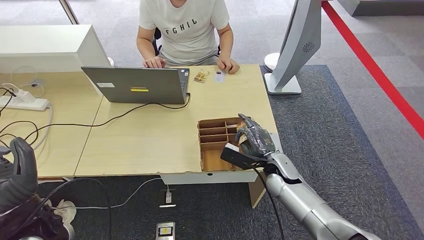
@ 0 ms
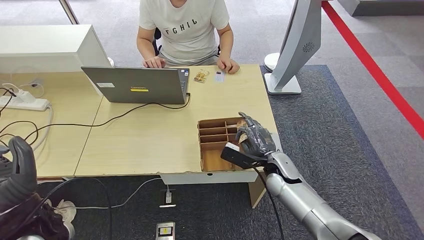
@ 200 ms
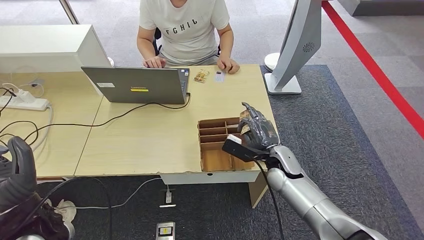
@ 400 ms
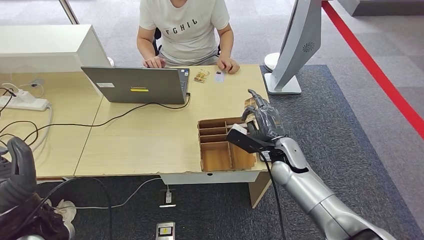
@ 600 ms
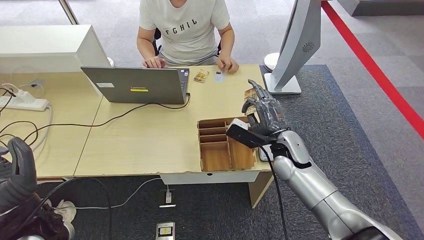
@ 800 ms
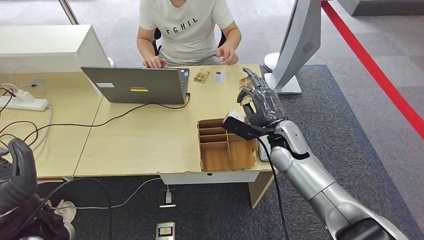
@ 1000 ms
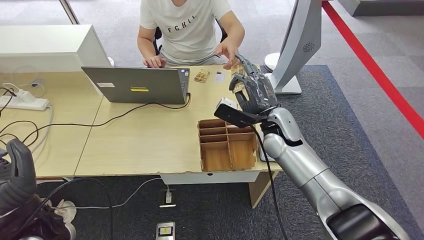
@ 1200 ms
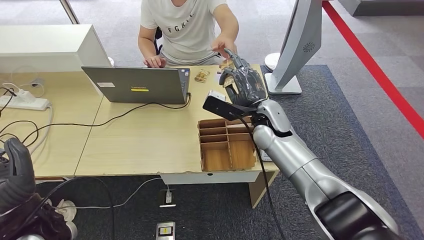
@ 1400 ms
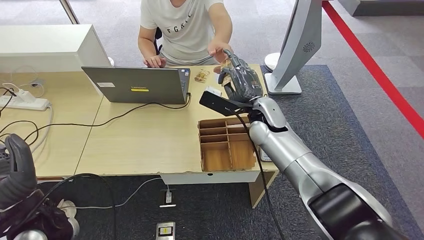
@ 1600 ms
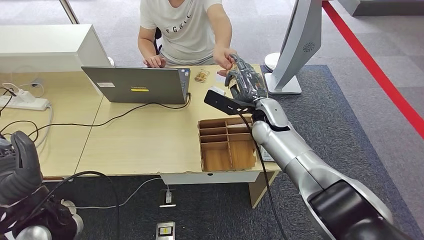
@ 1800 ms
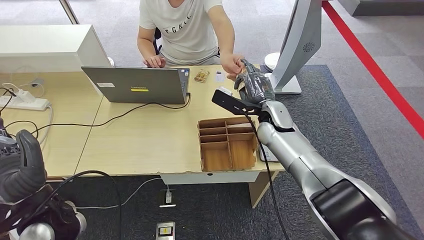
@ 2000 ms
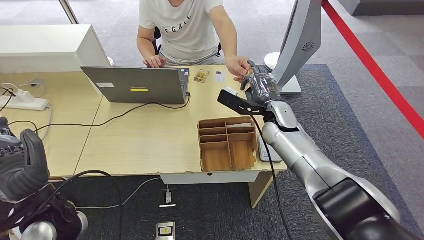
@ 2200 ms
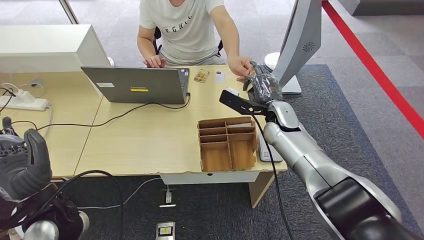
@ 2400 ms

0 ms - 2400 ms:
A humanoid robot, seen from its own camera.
Step, 1200 ms - 2400 ms: Hand the room key to the person.
0 ms - 1200 ms: The right hand is displaced upward by approximately 15 cm.
1200 ms - 2400 ms: The right hand moves some 5 cm.
